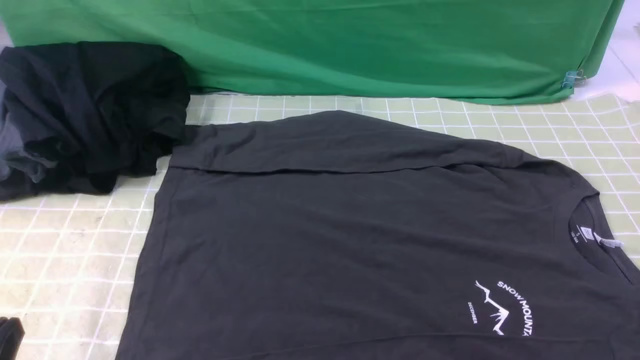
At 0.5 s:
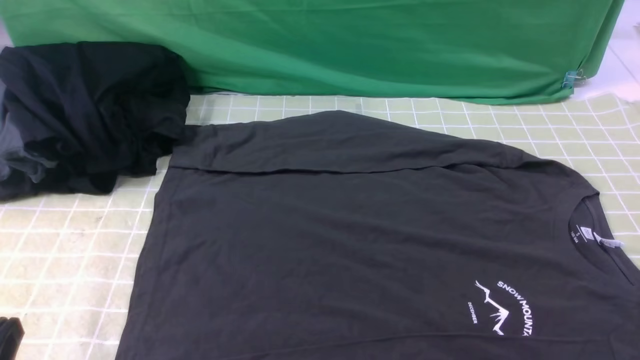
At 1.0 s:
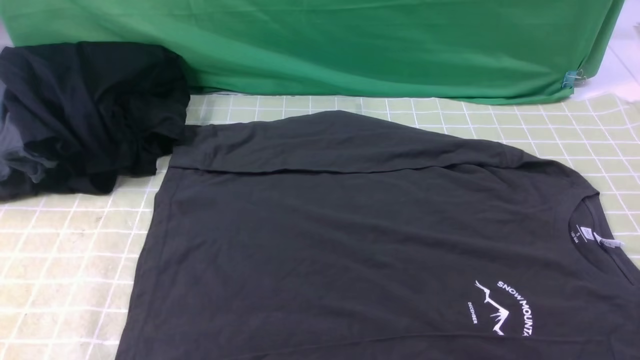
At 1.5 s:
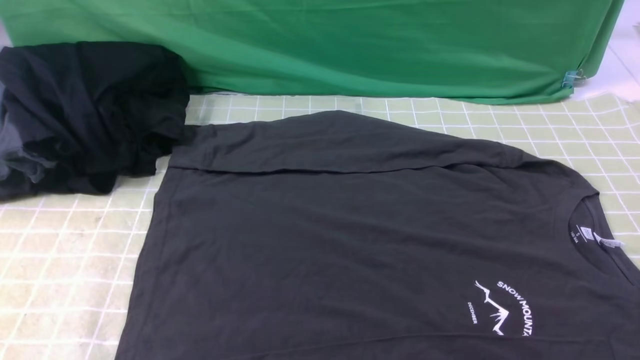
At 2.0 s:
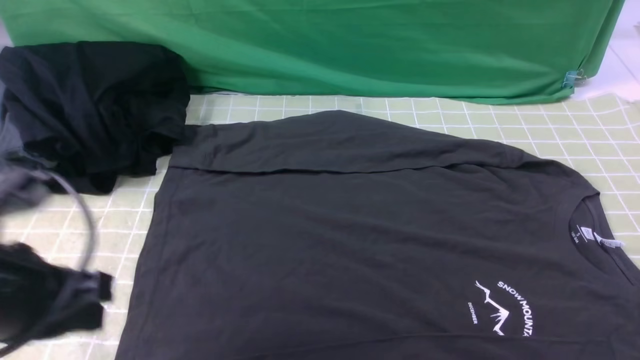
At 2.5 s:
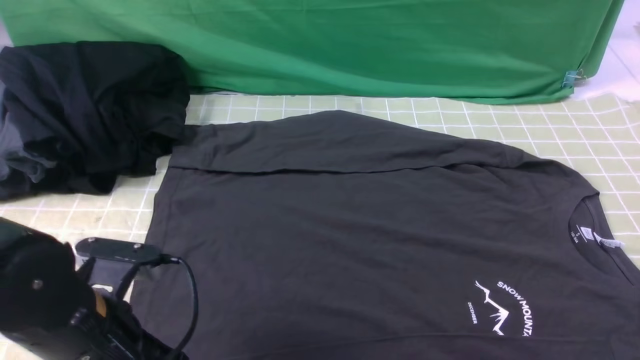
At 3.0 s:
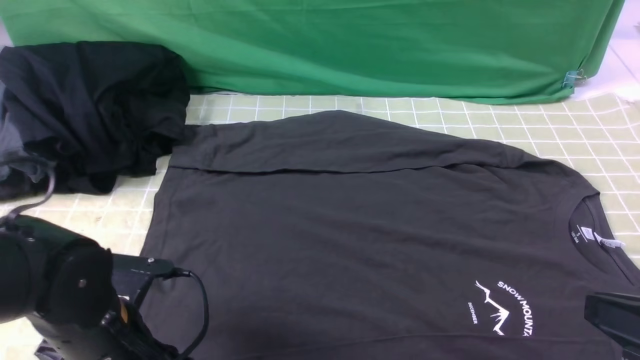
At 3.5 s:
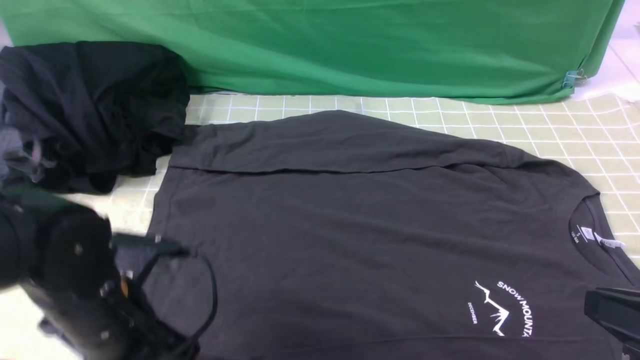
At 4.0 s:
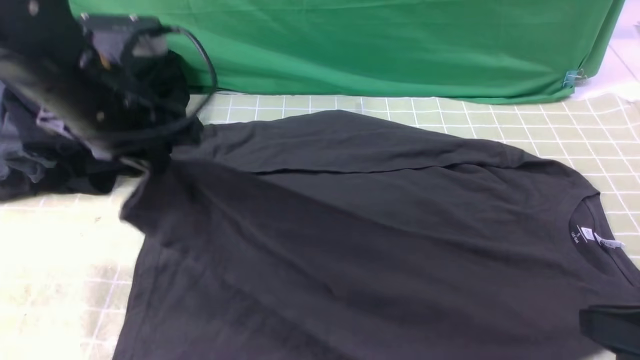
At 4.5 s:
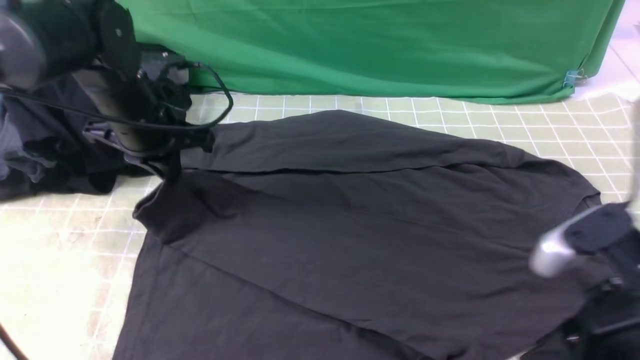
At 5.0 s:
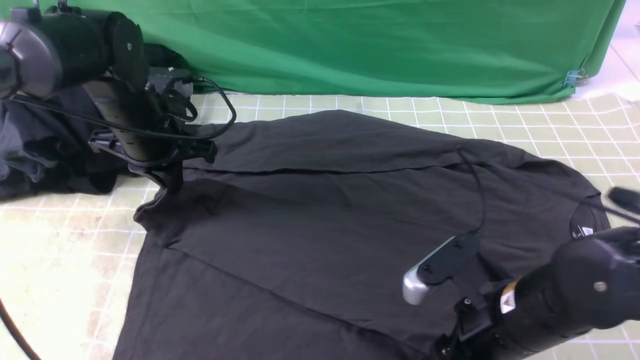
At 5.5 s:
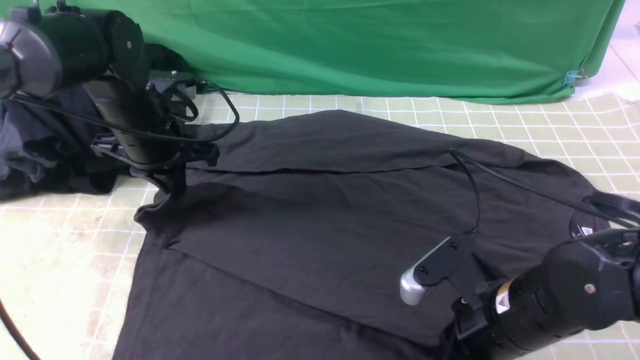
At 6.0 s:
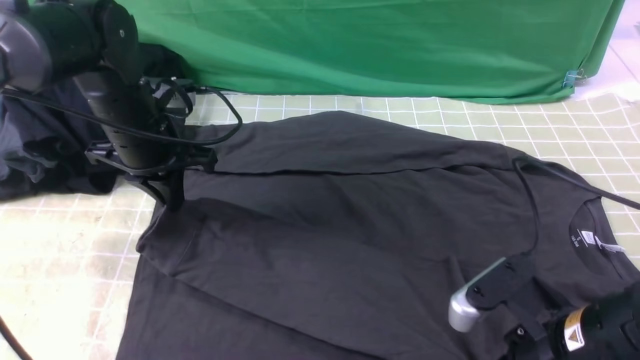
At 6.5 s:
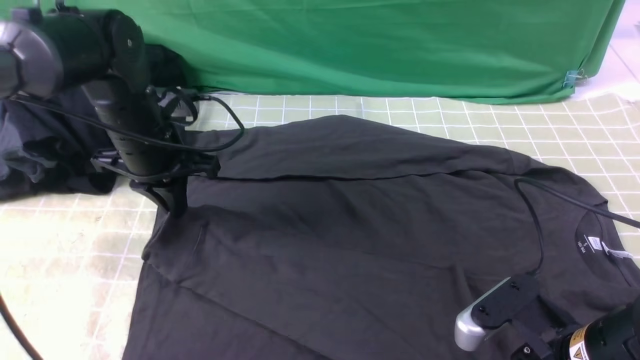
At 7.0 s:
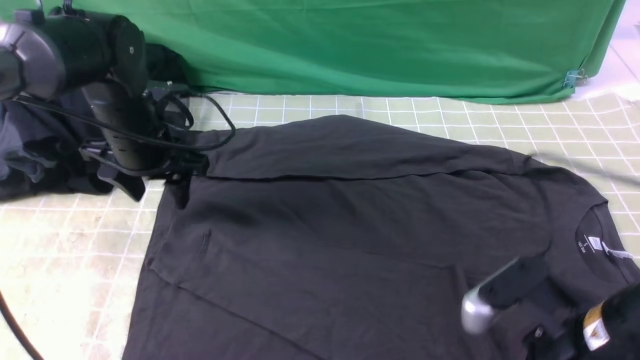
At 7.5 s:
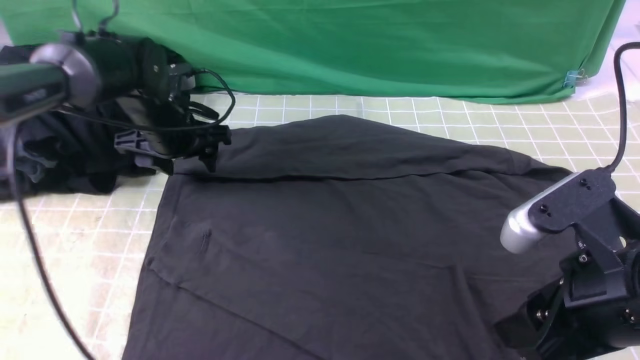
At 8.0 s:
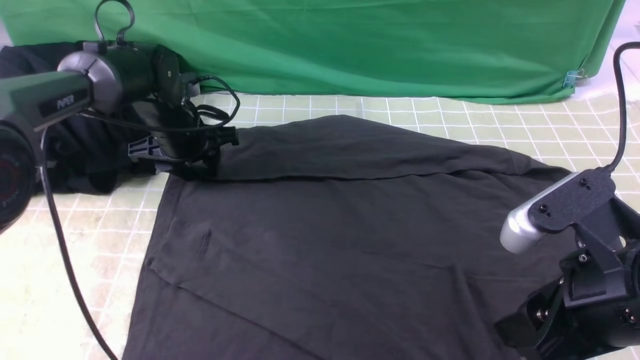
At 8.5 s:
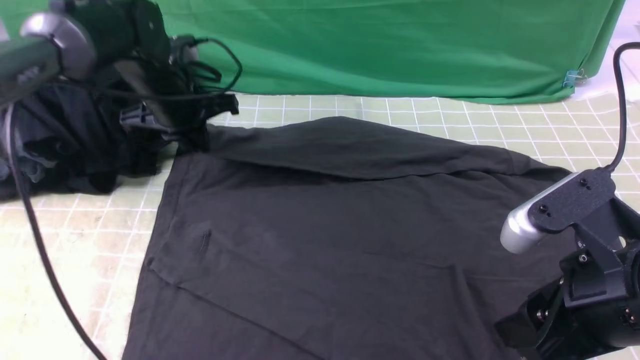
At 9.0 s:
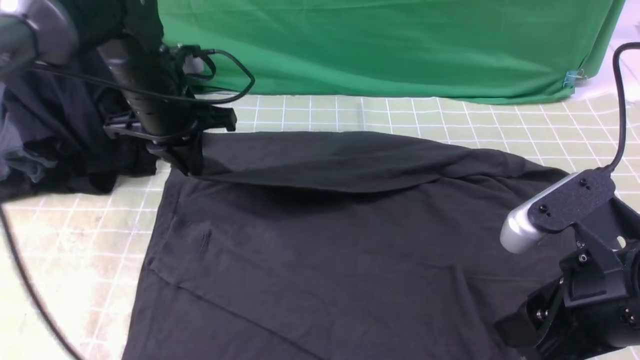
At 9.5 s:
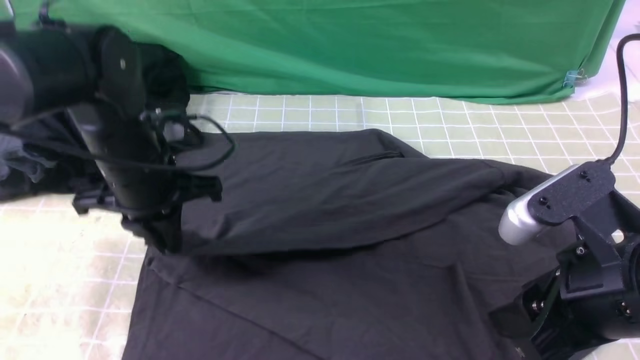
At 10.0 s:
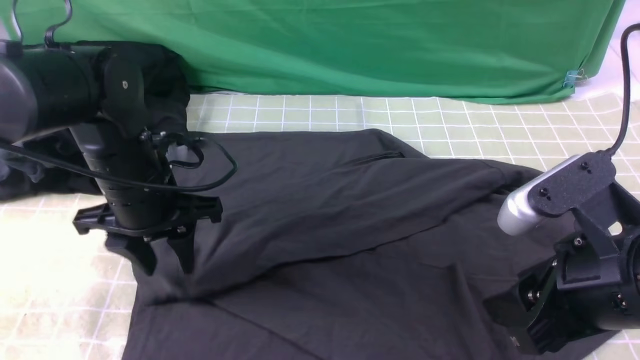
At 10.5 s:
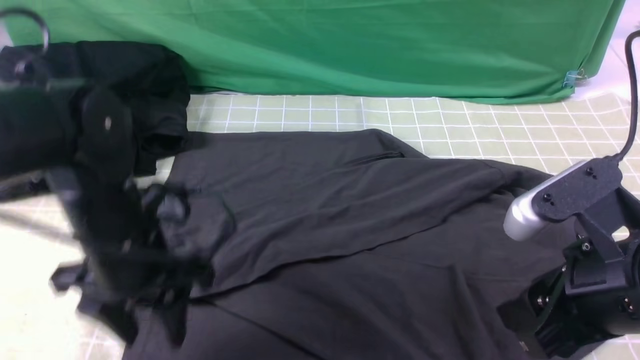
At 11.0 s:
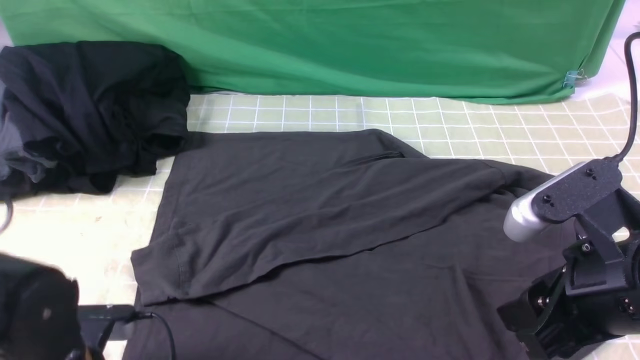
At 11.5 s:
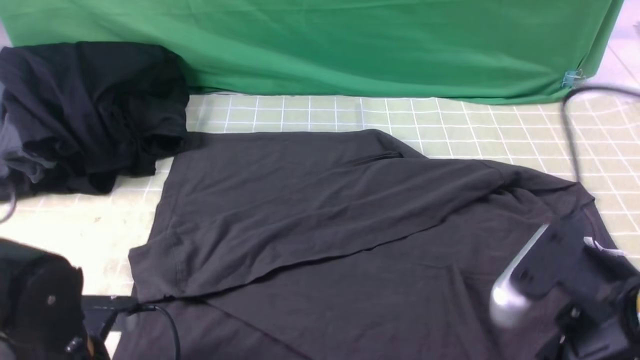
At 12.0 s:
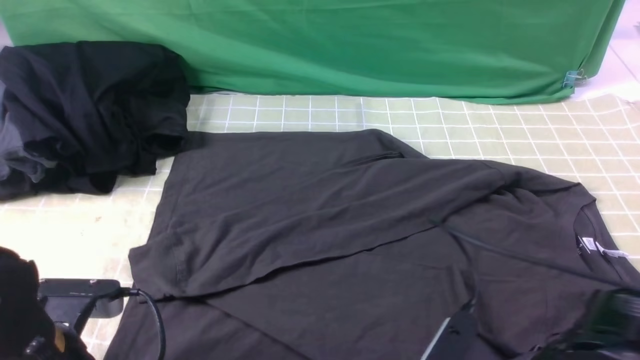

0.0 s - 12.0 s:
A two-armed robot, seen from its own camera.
Step, 0.0 s - 3.0 s: use the left arm to clamp the cuff closest to it.
Step, 3.5 s - 6.5 s: use the left arm to drag and place the cuff at the centered position on the left edge of the fabric.
Step, 7.0 s - 8.0 s: use the left arm to clamp the cuff farthest from it.
Step, 8.5 s - 10.0 s: use the left arm to drag and drop the cuff onto the cuff closest to the left arm.
0.0 s - 2.0 s: The left gripper travels forward and upward by about 15 cm.
2.0 s - 4.0 s: The left gripper heads forward, covering about 15 cm, and opens, then closes once more. Meanwhile the right gripper travels upward, to the left and forward by roughly 10 cm.
4.0 s - 6.0 s: The left gripper is displaced downward and forward by approximately 10 cm; the right gripper heads downward and to the left, covering some 10 cm, and opens and closes again.
6.0 s - 8.0 s: The right gripper goes some 10 cm upward, and opens up. The left gripper shifts approximately 10 cm forward and downward, and opens up.
8.0 s - 10.0 s: The left gripper travels backward by about 15 cm, and closes, then opens again.
10.0 s - 12.0 s: The left gripper moves backward, some 15 cm, and closes its fingers; the right gripper goes some 10 cm downward.

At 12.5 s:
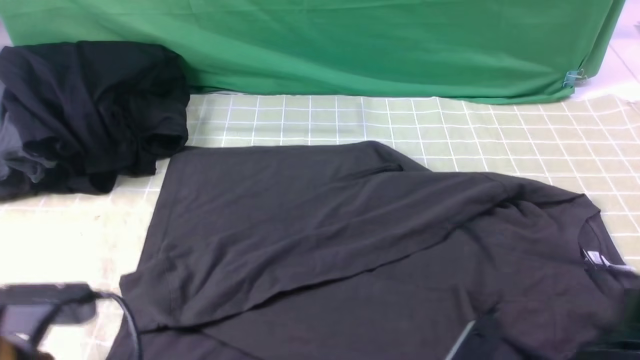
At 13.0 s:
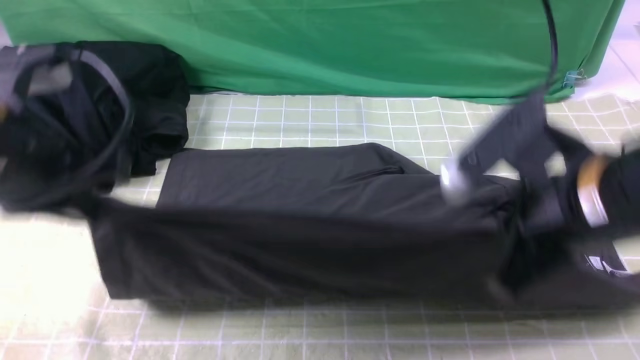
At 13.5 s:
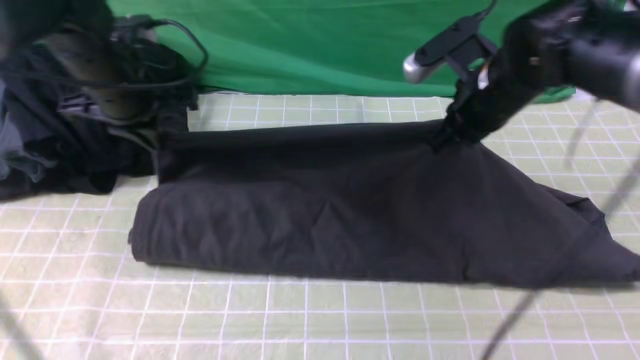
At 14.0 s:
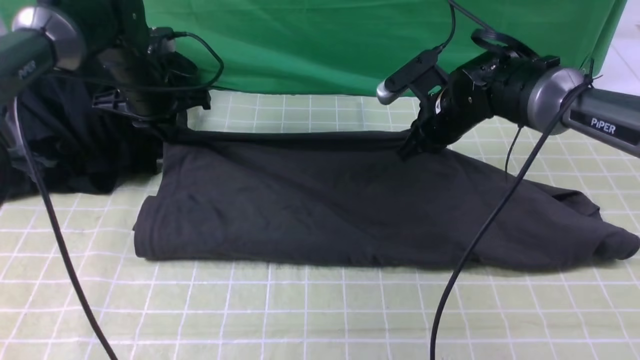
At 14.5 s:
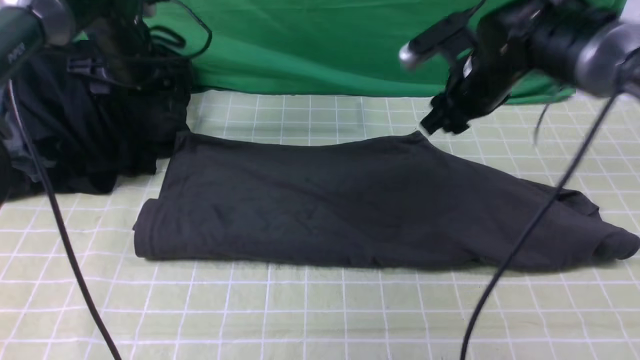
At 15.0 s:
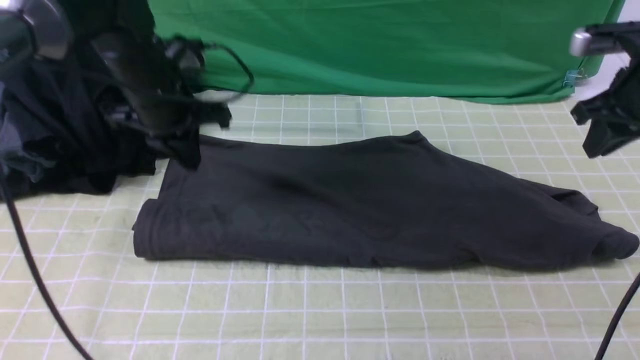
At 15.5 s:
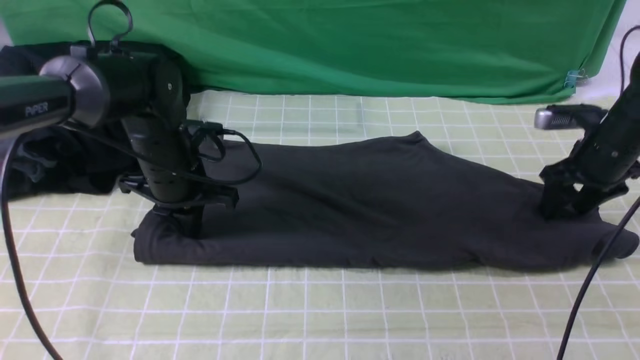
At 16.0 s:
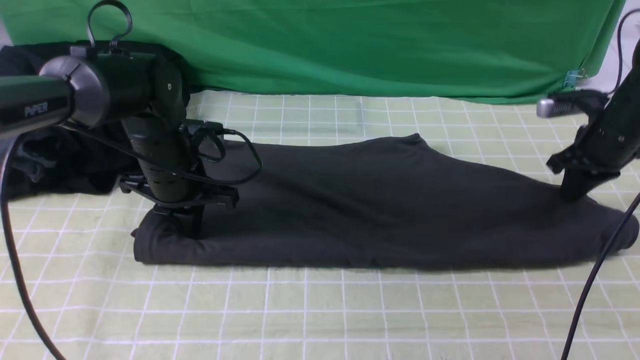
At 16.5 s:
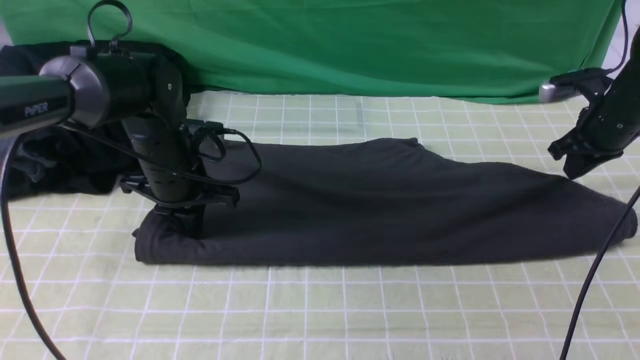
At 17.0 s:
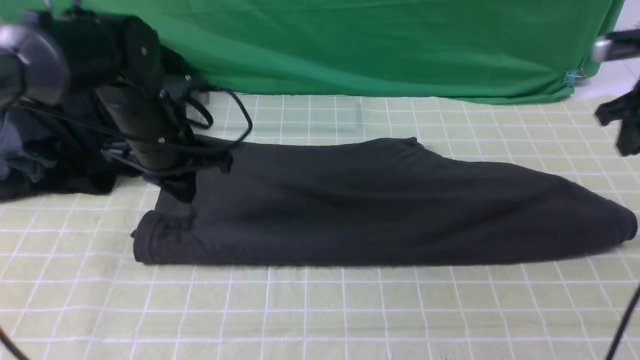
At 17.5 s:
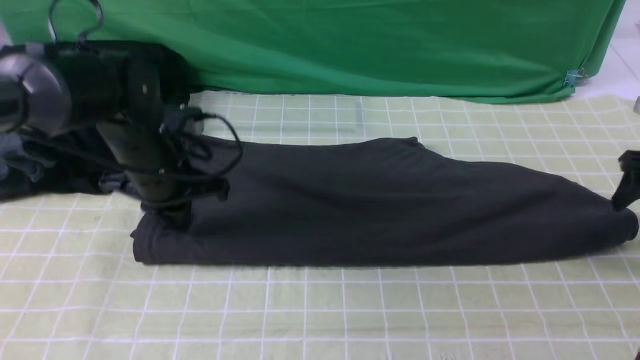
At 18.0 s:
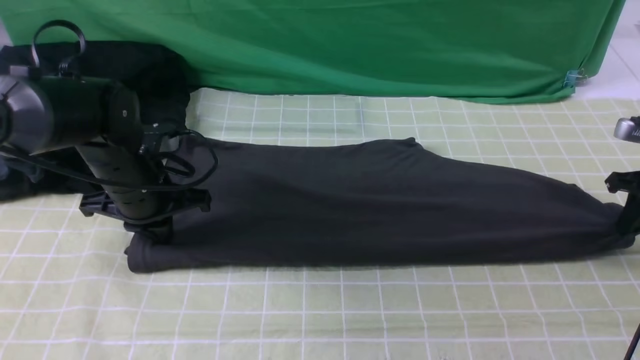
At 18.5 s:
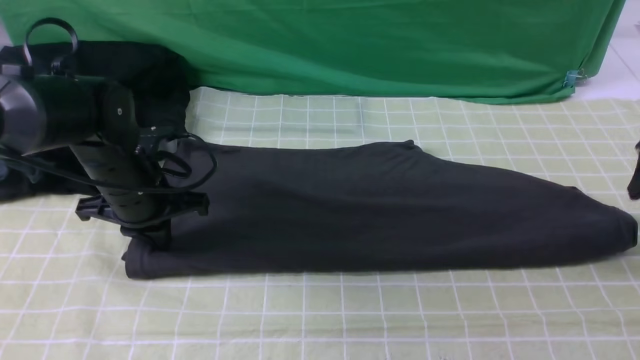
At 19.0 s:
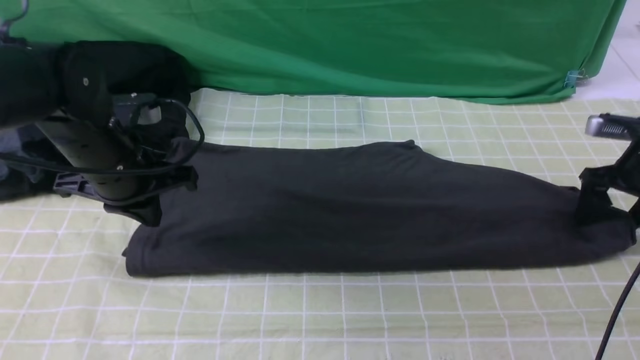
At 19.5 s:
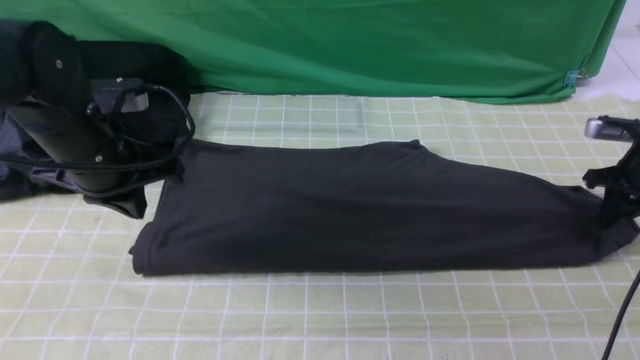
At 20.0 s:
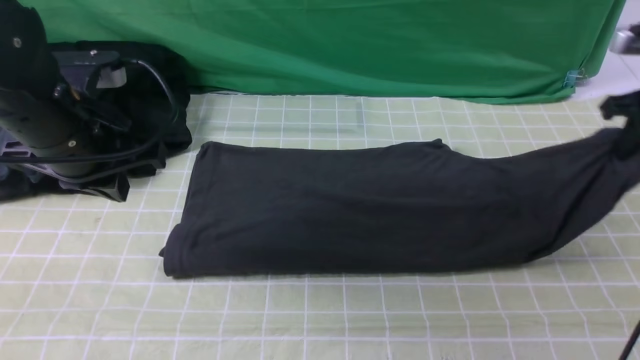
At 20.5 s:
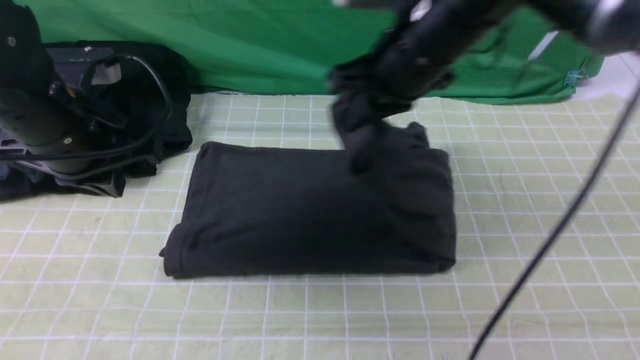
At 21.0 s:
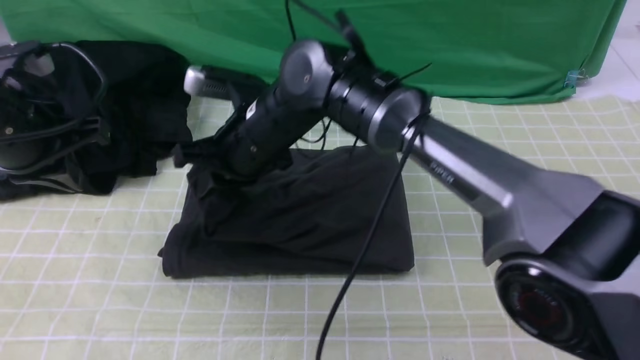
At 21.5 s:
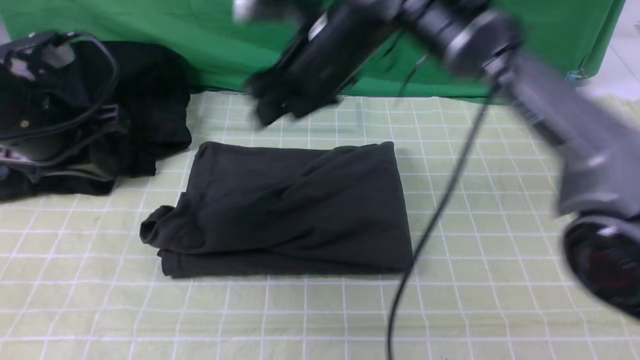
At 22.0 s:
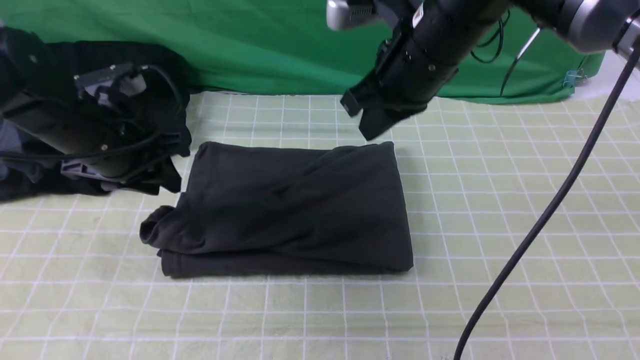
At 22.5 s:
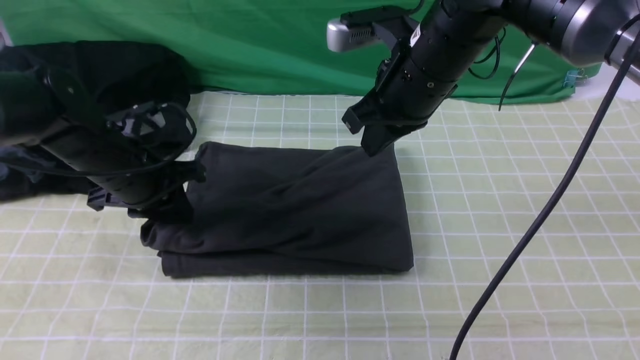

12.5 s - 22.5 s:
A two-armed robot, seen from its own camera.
Step, 12.5 s - 14.0 s: use both arms to drag the lower edge of the fabric forward and fold it over the upper edge.
Step, 14.5 s - 19.0 s: use the right arm to clamp the right edge of the fabric.
Step, 19.5 s - 21.0 s: use the right arm to drag the right edge of the fabric to the left and folds it over the left edge.
12.5 s - 14.5 s: The two grippers go some 35 cm forward. The right gripper opens up, while the left gripper opens its fingers.
14.5 s - 16.5 s: The left gripper heads backward, downward and to the right, covering roughly 15 cm, and closes its fingers. Meanwhile the right gripper moves to the right, approximately 15 cm.
16.5 s - 18.5 s: The left gripper shifts by about 5 cm, while the right gripper goes up and down, roughly 10 cm each way, reversing 2 times, and opens up.
18.5 s - 20.5 s: The left gripper is displaced upward by some 10 cm; the right gripper shifts some 35 cm to the left, and closes.
20.5 s - 22.5 s: The left gripper is displaced downward and forward by roughly 10 cm. The right gripper reaches roughly 15 cm to the left, then returns, and opens and closes again.
